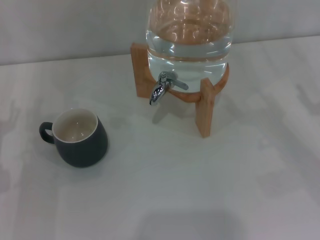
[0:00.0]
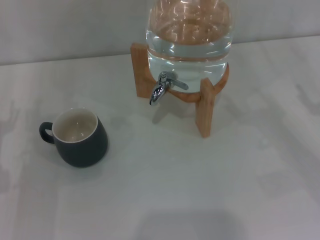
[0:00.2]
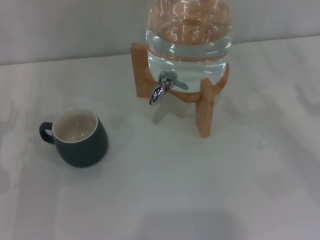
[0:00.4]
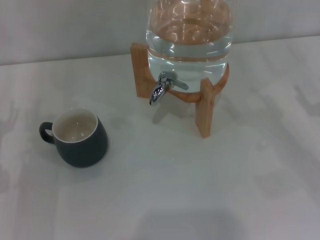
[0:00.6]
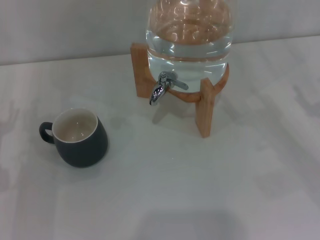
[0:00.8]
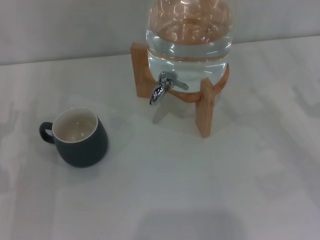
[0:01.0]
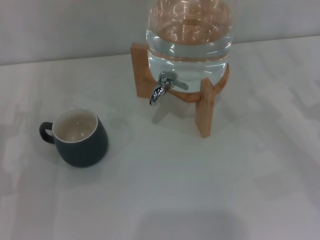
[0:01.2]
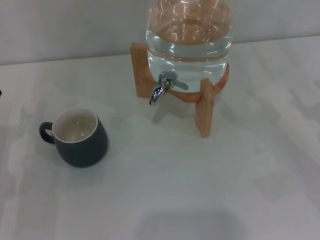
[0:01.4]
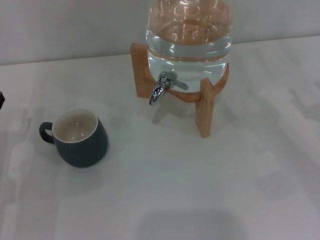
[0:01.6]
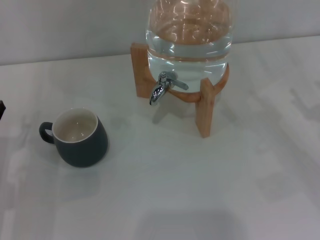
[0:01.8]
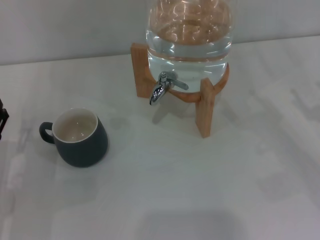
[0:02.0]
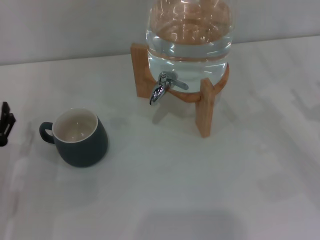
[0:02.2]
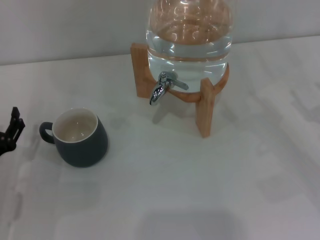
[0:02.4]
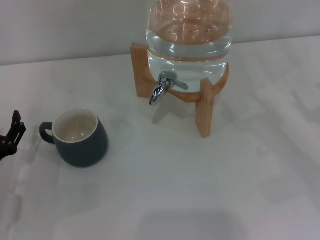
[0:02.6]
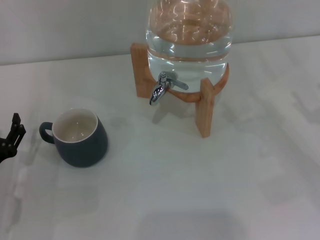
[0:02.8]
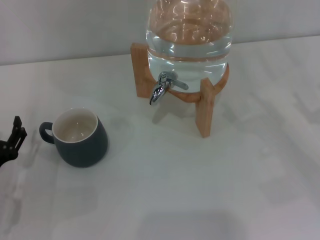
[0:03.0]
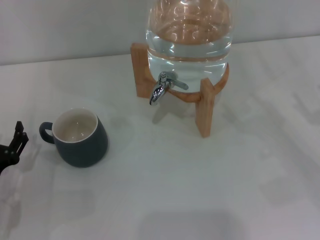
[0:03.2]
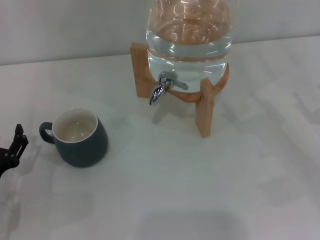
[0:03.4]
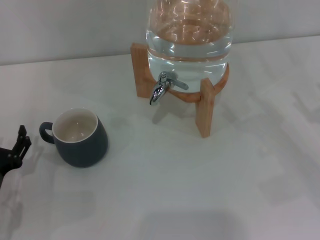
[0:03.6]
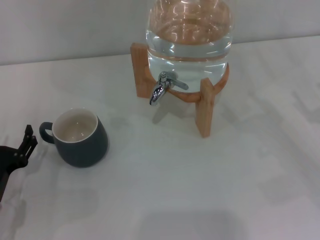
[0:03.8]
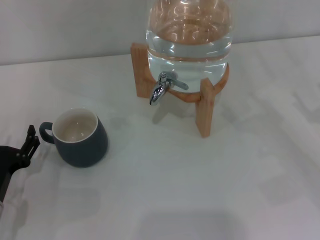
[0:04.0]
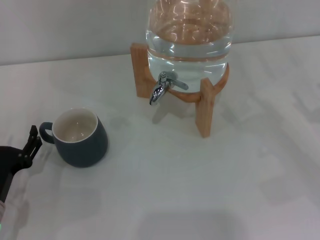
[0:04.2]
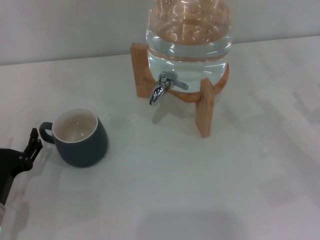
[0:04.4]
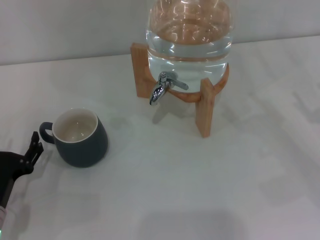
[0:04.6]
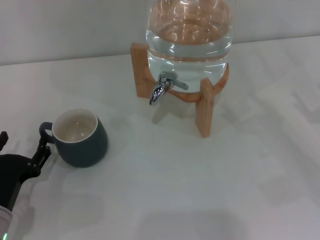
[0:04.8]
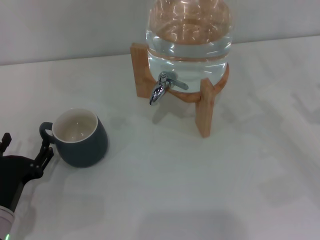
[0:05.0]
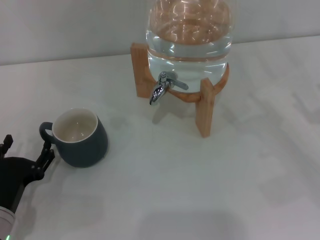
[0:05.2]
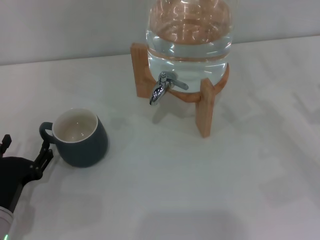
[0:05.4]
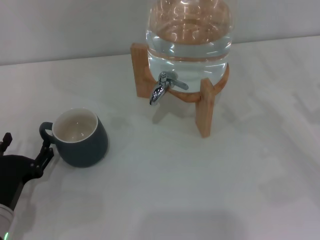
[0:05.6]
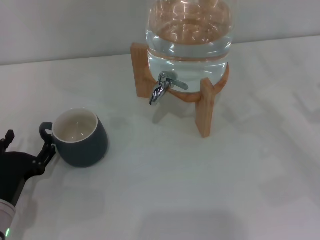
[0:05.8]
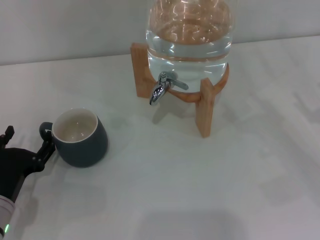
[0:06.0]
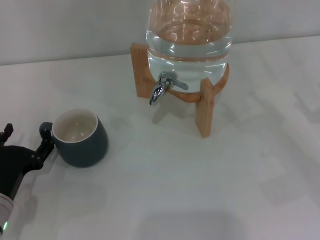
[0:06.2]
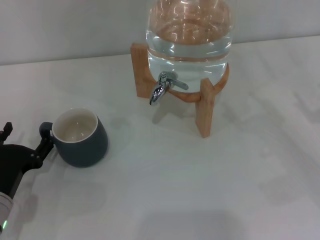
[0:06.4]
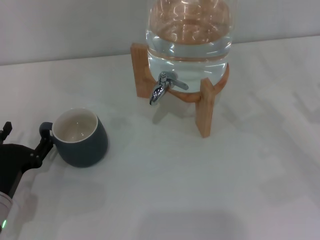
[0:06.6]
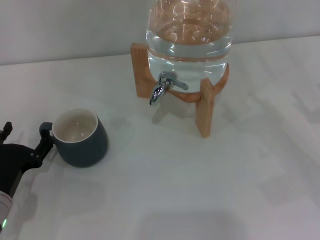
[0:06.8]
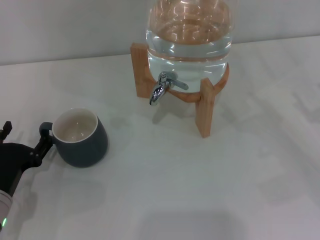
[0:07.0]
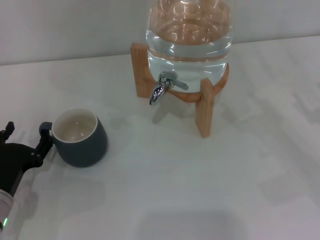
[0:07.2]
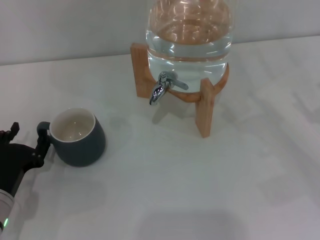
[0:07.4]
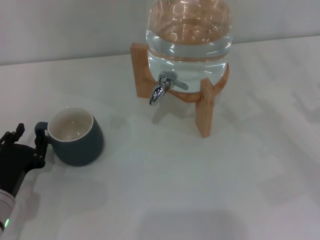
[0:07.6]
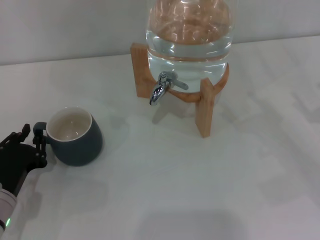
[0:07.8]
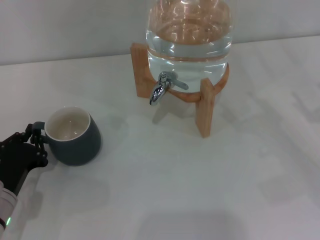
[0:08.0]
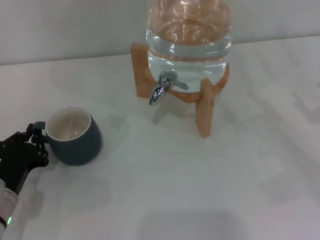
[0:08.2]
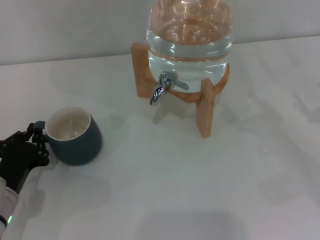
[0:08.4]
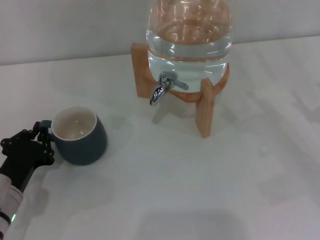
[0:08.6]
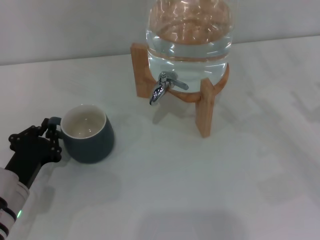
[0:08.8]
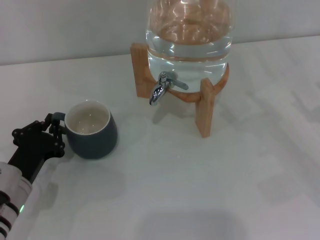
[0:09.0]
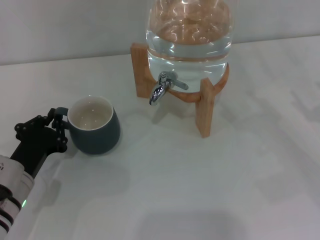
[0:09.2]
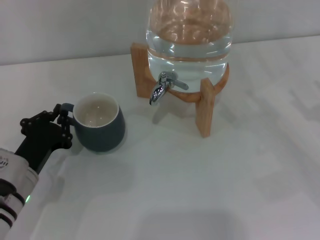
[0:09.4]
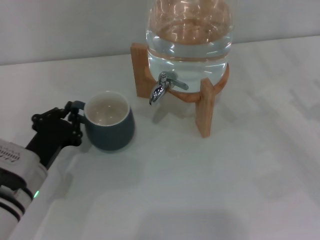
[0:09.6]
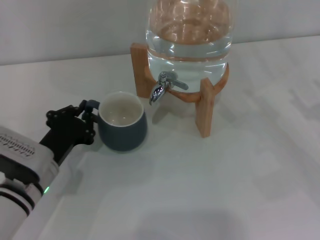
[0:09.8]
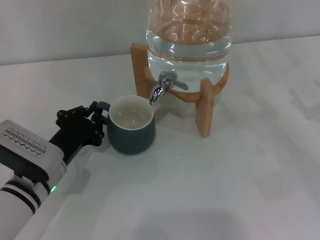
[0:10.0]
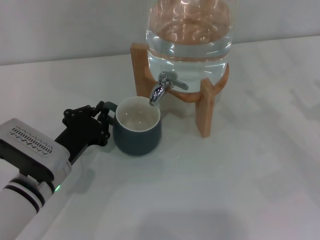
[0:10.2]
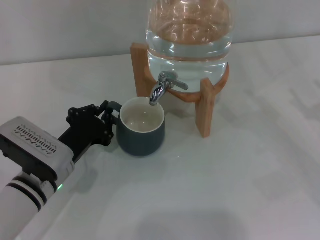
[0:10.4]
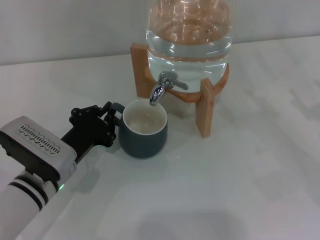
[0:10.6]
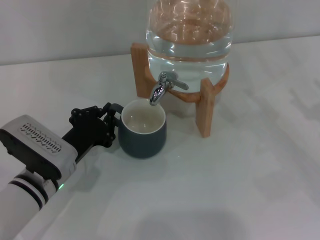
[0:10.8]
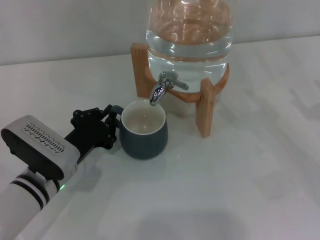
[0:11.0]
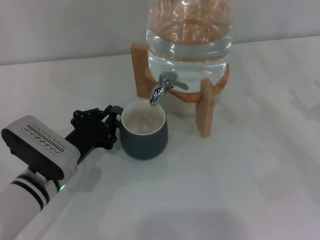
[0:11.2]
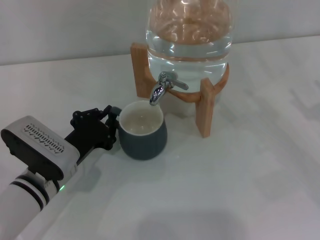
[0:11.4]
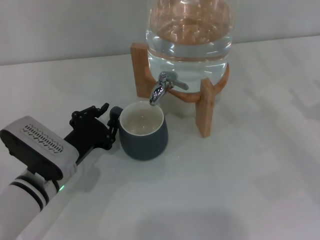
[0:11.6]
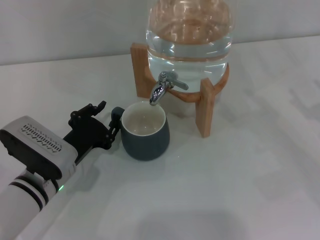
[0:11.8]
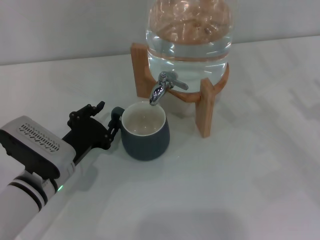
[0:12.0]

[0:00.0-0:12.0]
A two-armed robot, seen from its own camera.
Task of the whole recording: the left gripper pick up the black cup and place it horizontally under the faucet, the right gripper turn on the faucet to fill the cup, and then turn off the faucet.
0:01.6 to 0:04.4: There are only small adjustments of the grippers.
0:04.4 to 0:06.0: There are only small adjustments of the grippers.
0:06.0 to 0:07.6: The left gripper closes.
0:07.6 to 0:09.0: The left gripper closes its fingers.
0:09.0 to 0:10.4: The left gripper is displaced to the right by approximately 5 cm.
0:10.4 to 0:12.0: The left gripper opens.

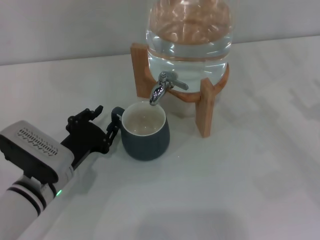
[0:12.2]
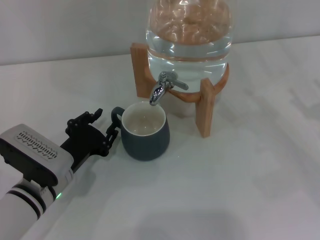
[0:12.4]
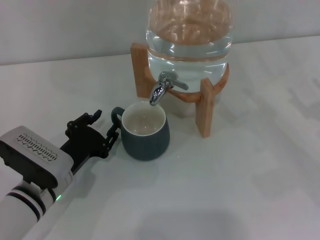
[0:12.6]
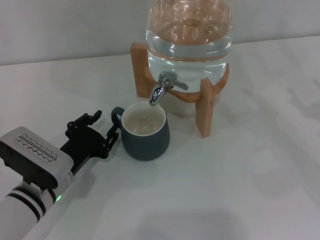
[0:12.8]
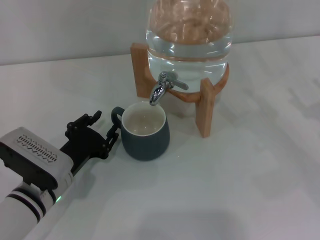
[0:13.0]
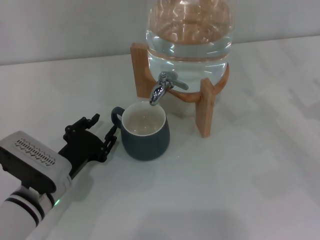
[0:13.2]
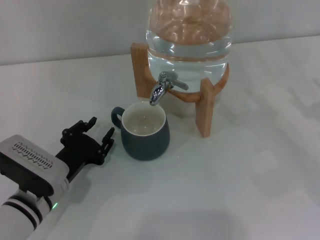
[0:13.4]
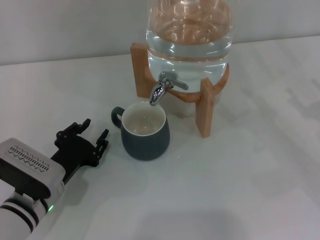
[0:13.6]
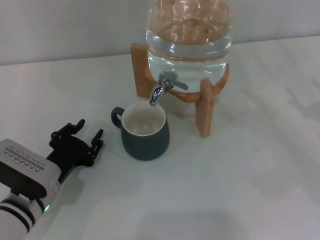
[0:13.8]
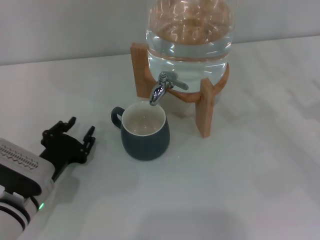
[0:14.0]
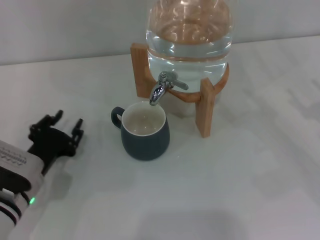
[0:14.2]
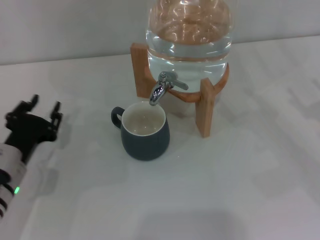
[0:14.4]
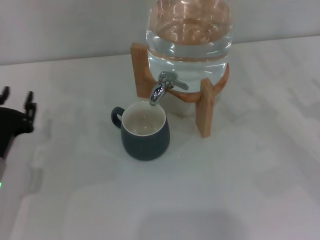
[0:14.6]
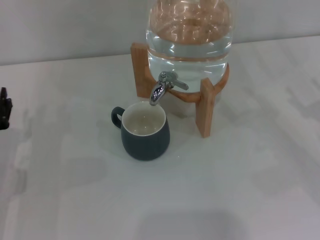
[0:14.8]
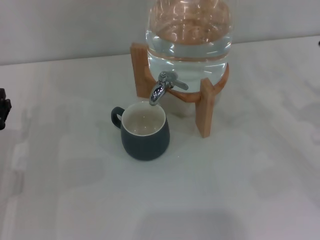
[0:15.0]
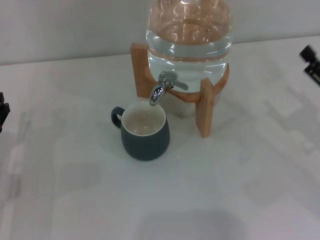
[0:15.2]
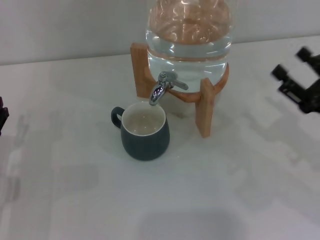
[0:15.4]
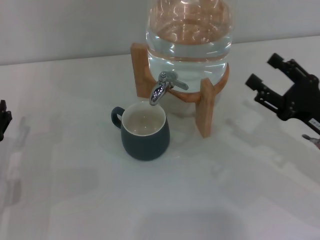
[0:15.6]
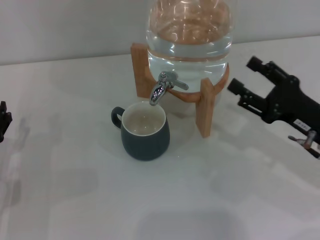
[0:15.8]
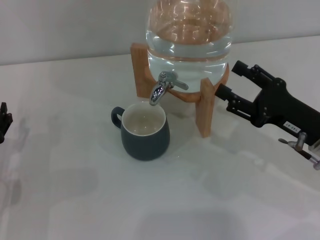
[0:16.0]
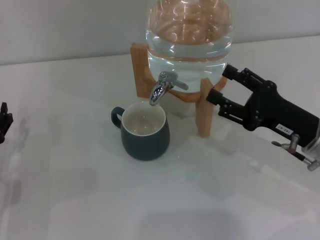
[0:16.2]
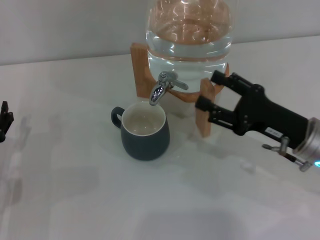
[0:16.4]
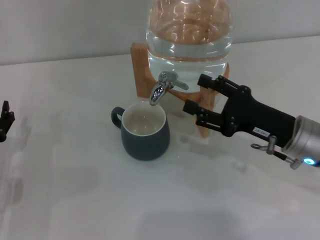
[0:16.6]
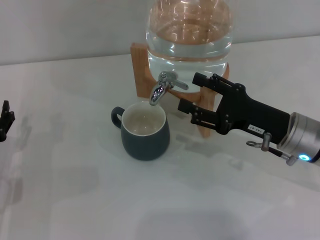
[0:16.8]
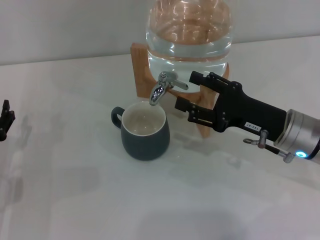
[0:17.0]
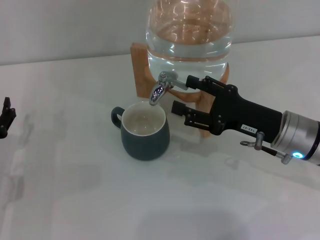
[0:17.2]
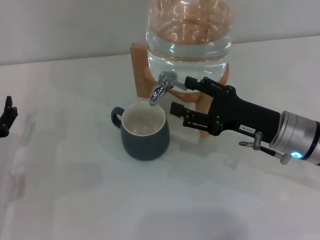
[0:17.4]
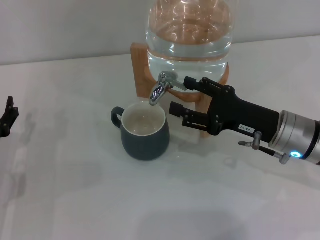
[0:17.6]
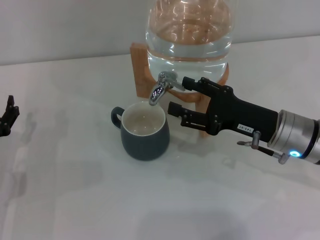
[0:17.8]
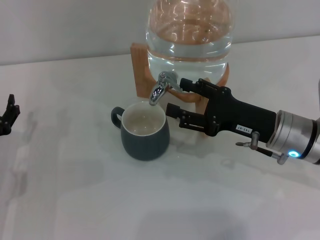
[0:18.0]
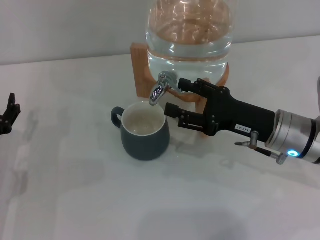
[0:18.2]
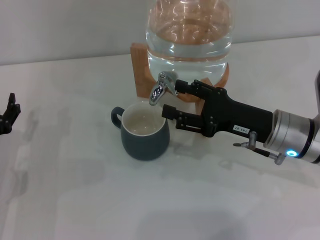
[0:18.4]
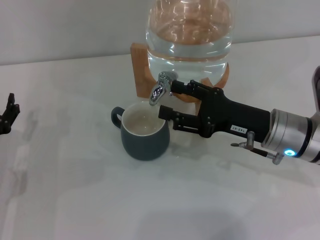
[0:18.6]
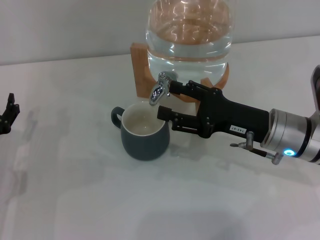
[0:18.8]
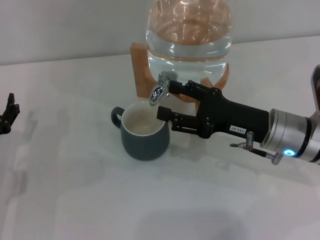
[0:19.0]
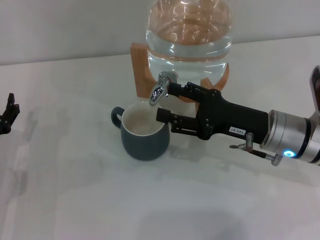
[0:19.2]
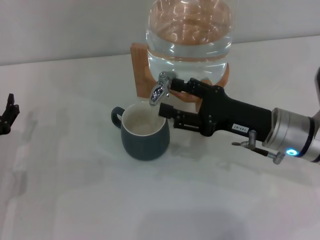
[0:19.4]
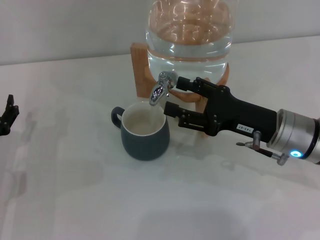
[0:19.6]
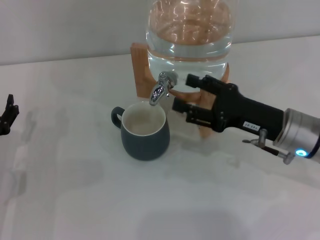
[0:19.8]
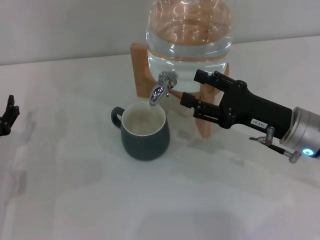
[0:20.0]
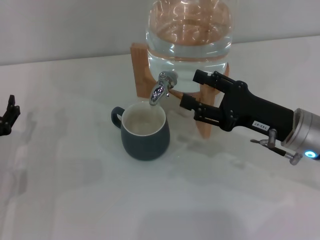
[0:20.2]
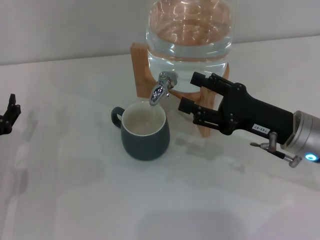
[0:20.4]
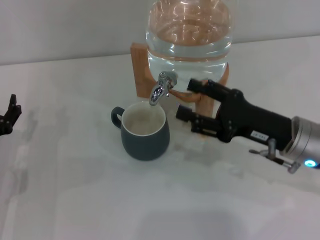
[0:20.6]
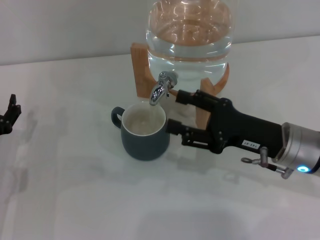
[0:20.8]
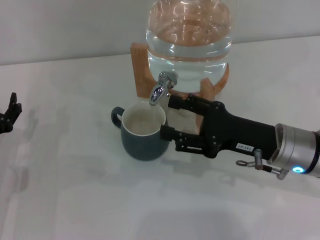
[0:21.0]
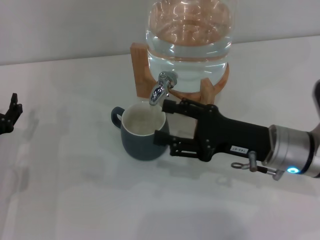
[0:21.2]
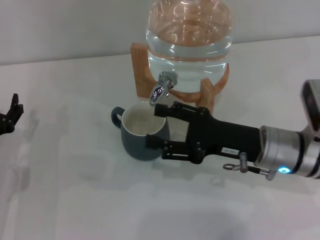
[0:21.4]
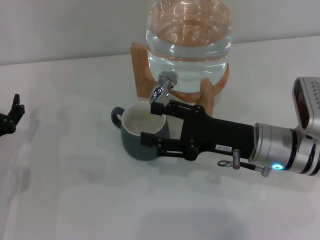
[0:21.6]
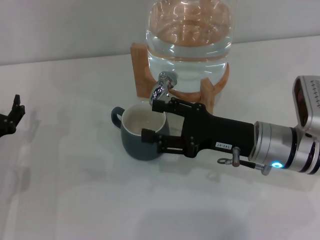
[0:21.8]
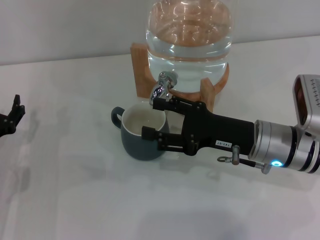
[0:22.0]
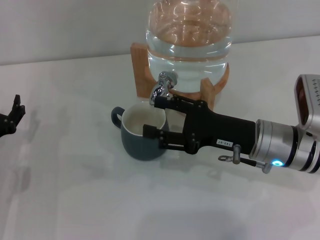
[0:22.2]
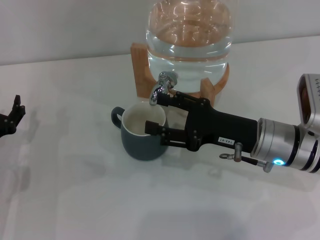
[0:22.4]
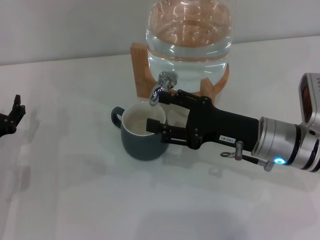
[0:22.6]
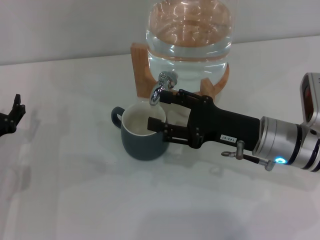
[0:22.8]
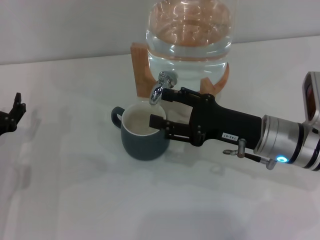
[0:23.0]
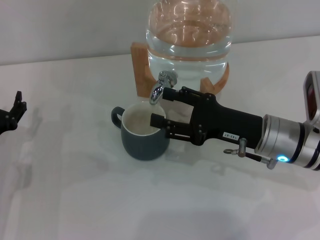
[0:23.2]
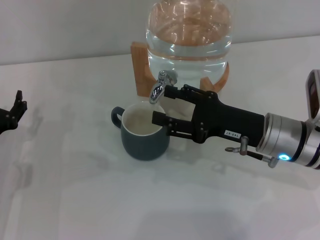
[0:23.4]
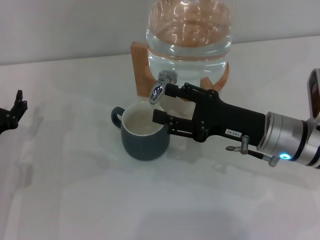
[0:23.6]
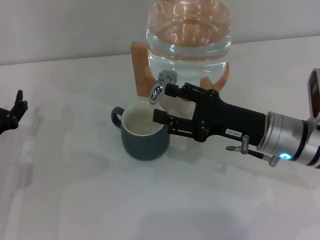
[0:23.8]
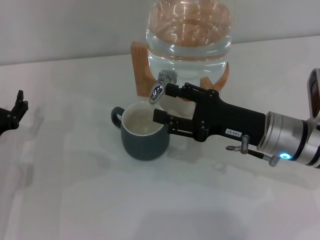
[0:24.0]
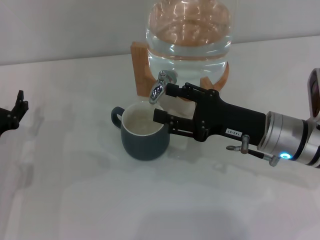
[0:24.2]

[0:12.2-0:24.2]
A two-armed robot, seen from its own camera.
Task of the whole recording: the left gripper pick up the black cup and place it horizontally under the faucet, the right gripper turn on the faucet to fill the cup, and then turn off the faucet.
Step, 0:13.4 to 0:19.6: Open the dispenser valve and fill the cup with water with the right gripper.
0:12.2 to 0:13.8: The grippers move only a little.
0:13.8 to 0:15.2: The left gripper goes roughly 10 cm to the left, and opens.
0:15.2 to 0:16.6: The right gripper shifts approximately 10 cm to the left.
0:16.6 to 0:18.2: There are only small adjustments of the grippers.
0:18.2 to 0:19.8: Both grippers stay about where they are.
0:19.8 to 0:22.6: The grippers stay close to where they were, moving slightly.
0:22.6 to 0:24.2: The two grippers keep their place.
